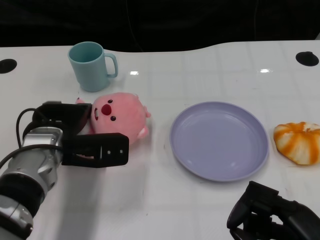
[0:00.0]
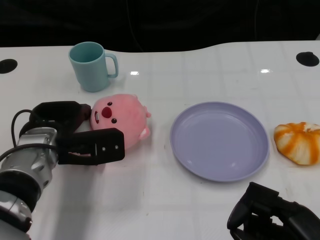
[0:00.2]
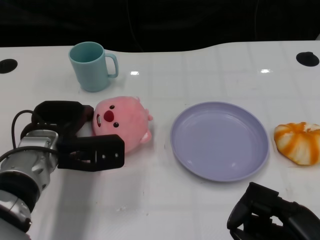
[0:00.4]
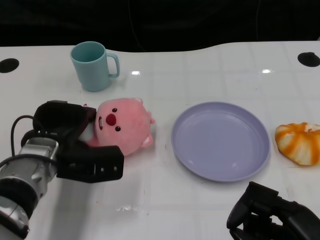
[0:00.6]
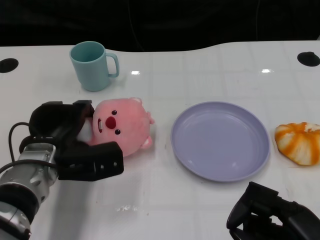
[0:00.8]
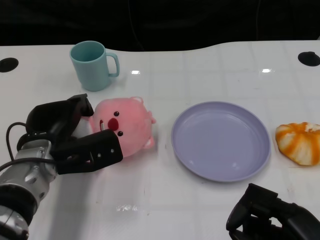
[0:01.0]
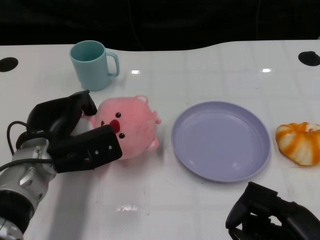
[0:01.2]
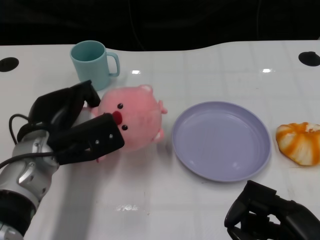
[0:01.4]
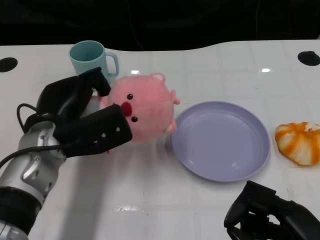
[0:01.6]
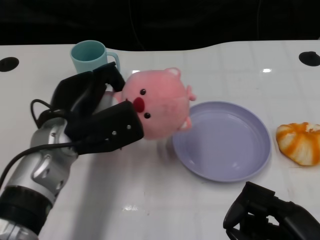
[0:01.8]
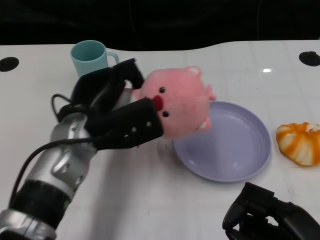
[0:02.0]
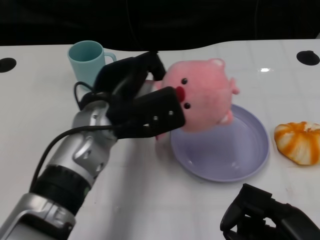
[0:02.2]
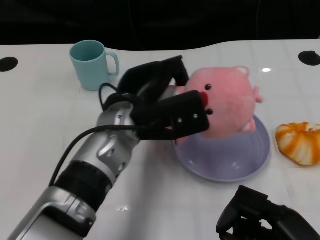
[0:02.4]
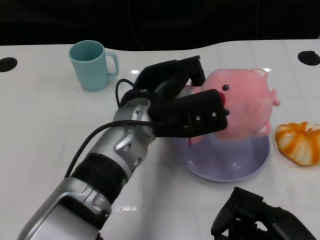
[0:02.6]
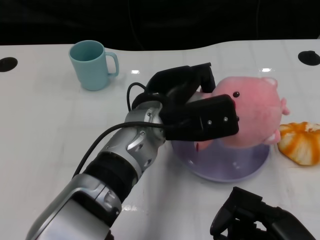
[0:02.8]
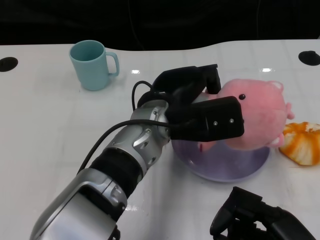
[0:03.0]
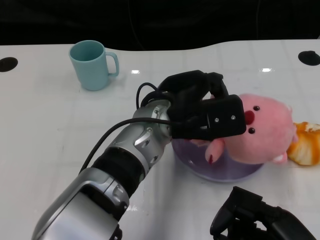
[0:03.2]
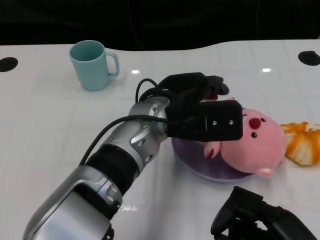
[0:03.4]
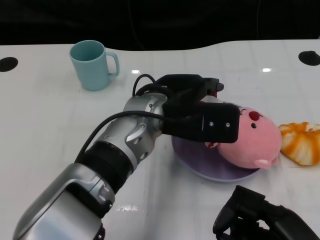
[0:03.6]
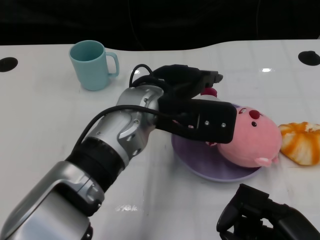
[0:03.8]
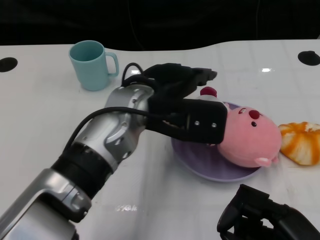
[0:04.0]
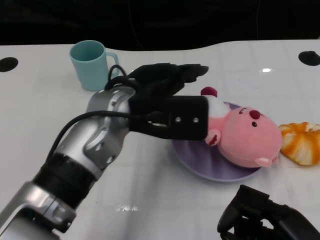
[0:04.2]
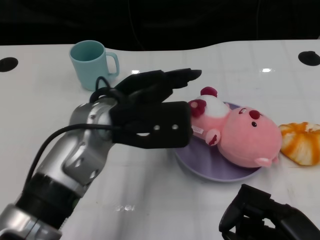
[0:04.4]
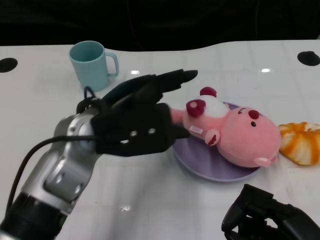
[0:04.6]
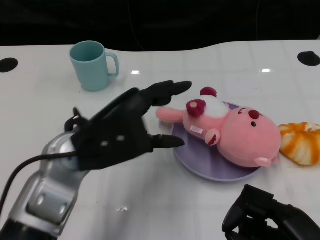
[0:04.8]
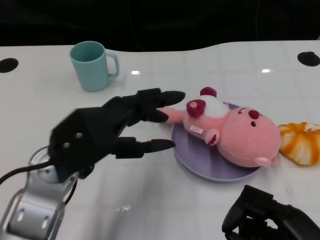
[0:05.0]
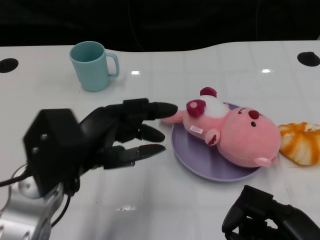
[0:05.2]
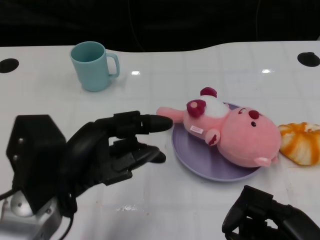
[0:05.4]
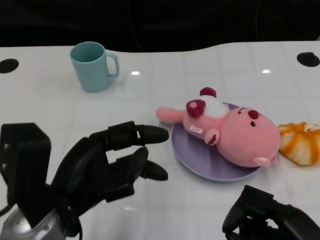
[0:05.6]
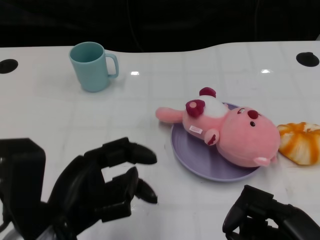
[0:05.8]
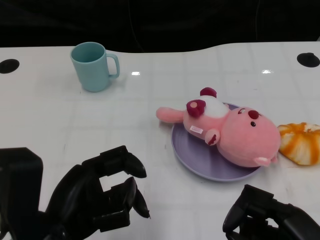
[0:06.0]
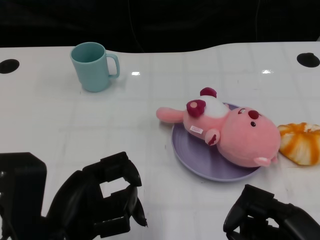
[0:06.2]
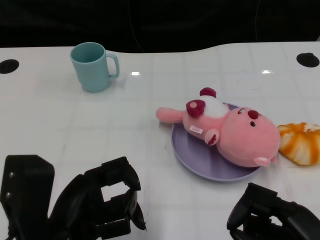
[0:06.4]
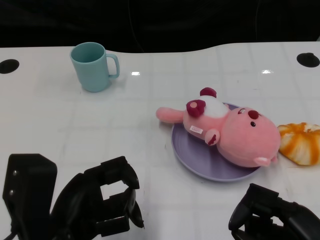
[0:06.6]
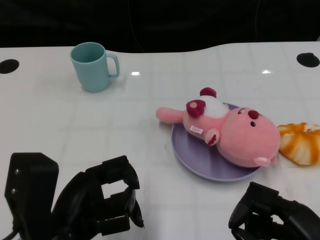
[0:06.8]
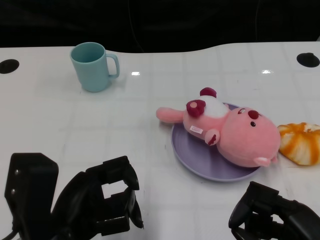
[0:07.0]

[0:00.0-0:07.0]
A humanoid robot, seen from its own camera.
Task of the whole recording: Pick up the doll on one side of the plate and place it into the plate.
Step, 0:01.8 to 0:04.0: Place the pink doll into the plate with the left gripper.
0:01.4 to 0:02.8: The left hand goes some 15 cm to the right.
0:02.8 to 0:04.2: The left hand ends up some 5 cm from where it was.
0:04.2 to 0:05.6: The left hand shifts roughly 15 cm backward and to the left.
0:05.6 to 0:07.0: The hands move only a little.

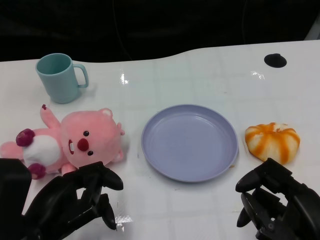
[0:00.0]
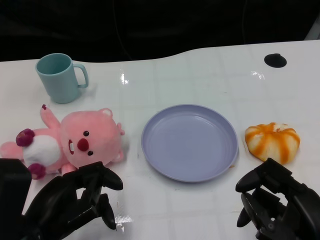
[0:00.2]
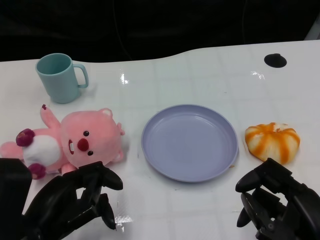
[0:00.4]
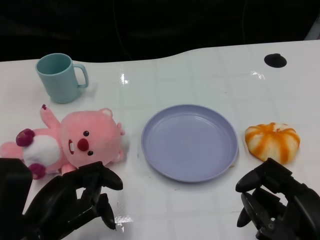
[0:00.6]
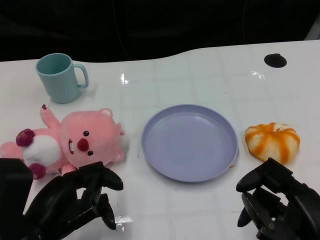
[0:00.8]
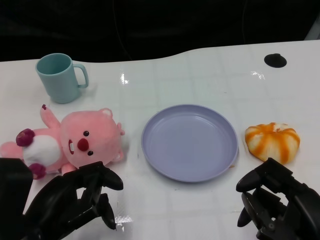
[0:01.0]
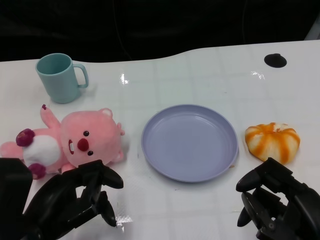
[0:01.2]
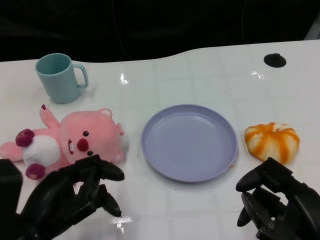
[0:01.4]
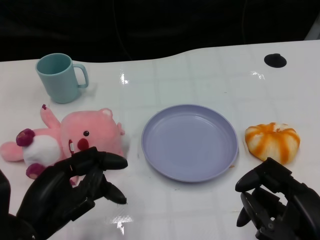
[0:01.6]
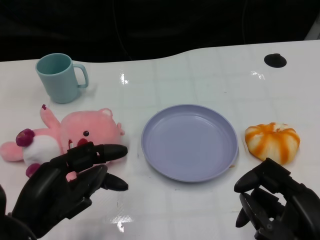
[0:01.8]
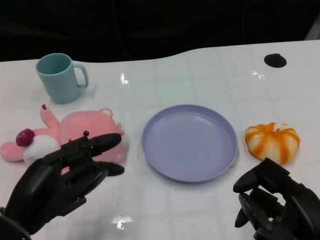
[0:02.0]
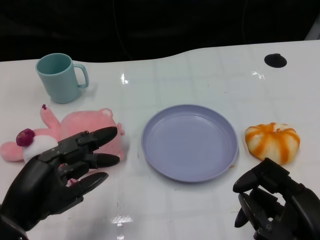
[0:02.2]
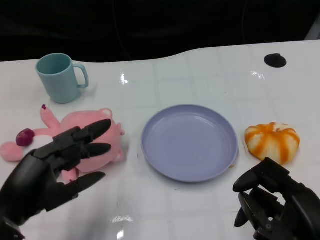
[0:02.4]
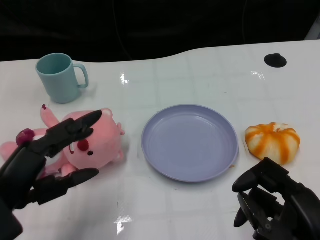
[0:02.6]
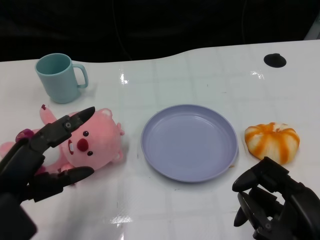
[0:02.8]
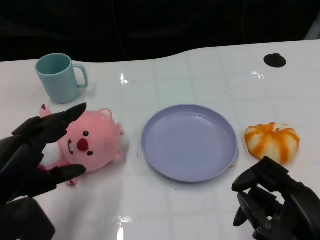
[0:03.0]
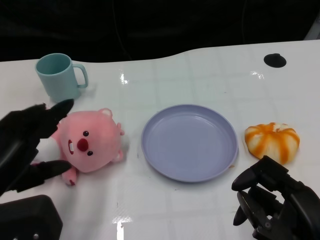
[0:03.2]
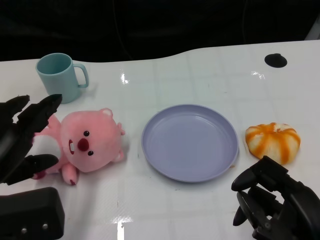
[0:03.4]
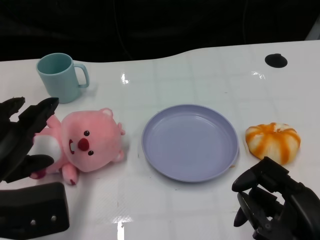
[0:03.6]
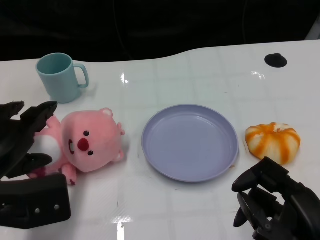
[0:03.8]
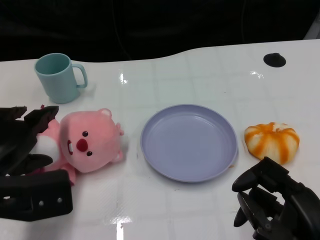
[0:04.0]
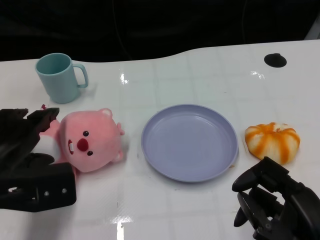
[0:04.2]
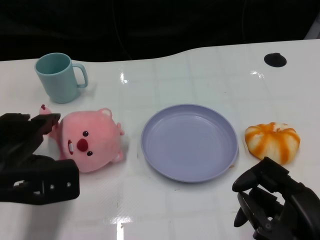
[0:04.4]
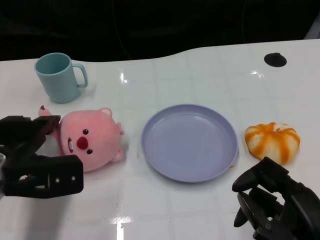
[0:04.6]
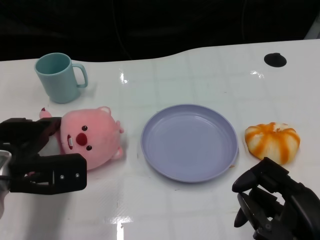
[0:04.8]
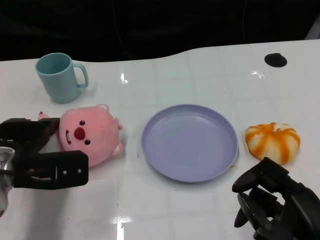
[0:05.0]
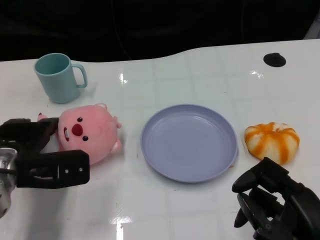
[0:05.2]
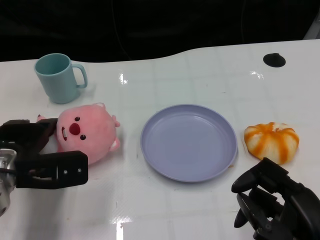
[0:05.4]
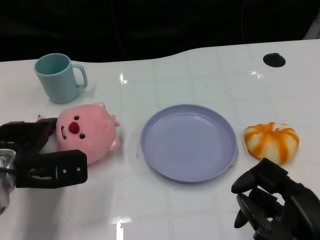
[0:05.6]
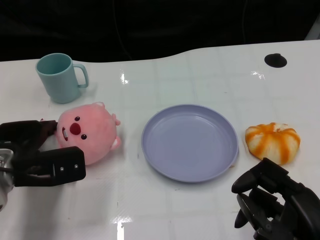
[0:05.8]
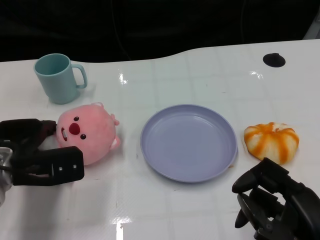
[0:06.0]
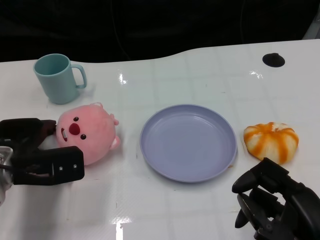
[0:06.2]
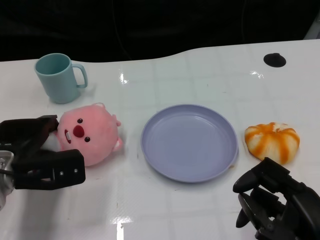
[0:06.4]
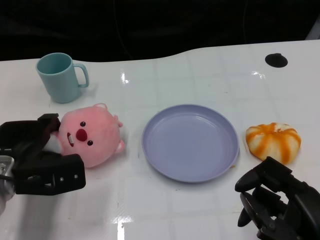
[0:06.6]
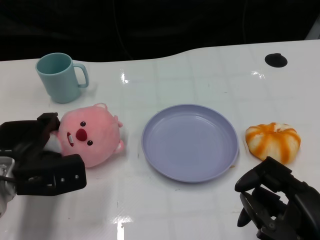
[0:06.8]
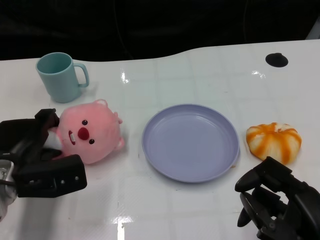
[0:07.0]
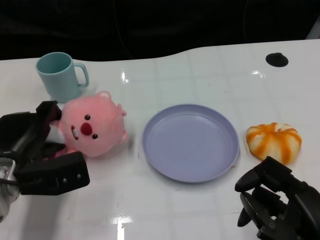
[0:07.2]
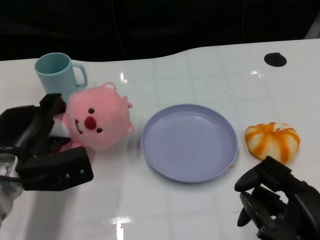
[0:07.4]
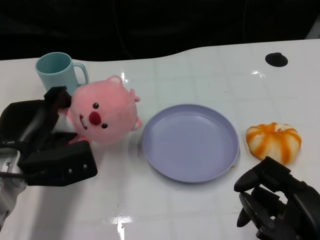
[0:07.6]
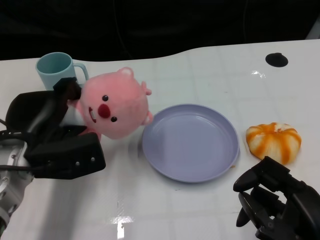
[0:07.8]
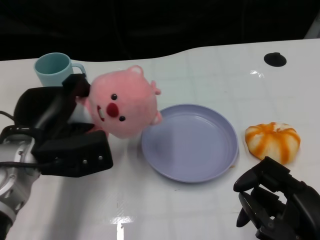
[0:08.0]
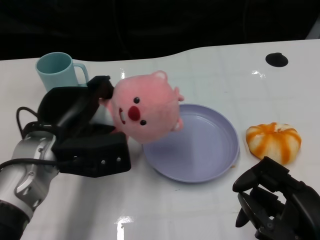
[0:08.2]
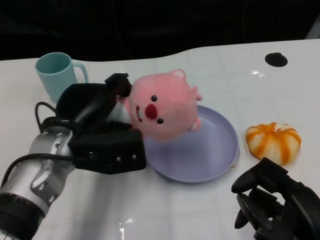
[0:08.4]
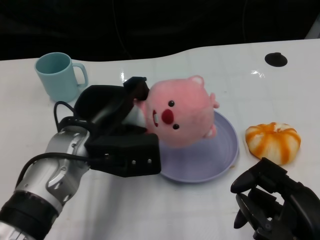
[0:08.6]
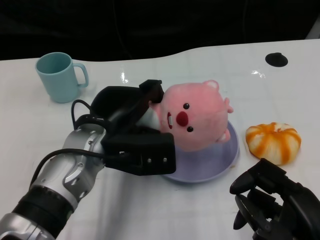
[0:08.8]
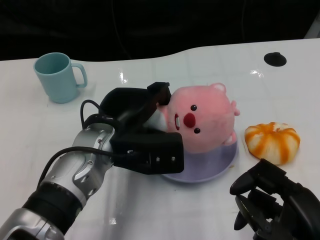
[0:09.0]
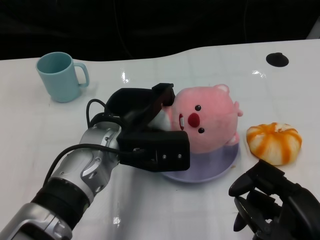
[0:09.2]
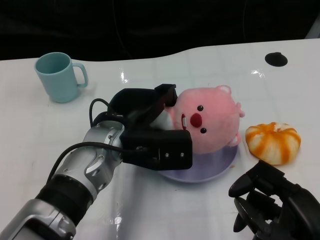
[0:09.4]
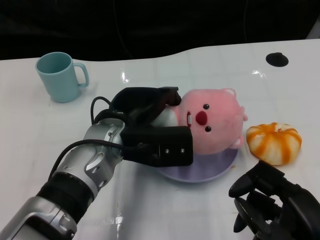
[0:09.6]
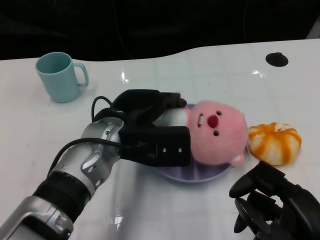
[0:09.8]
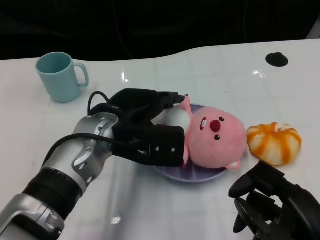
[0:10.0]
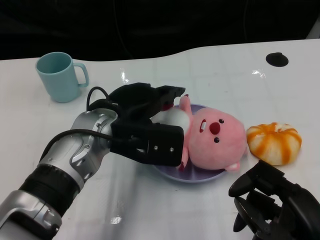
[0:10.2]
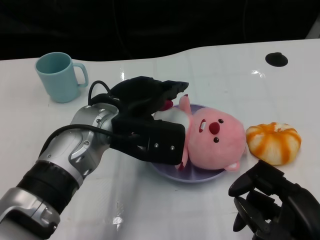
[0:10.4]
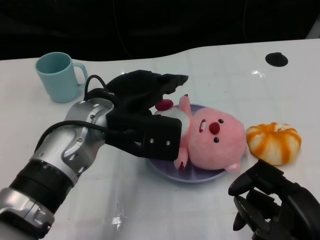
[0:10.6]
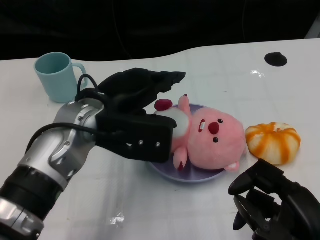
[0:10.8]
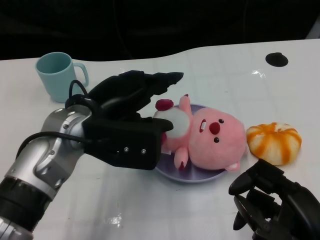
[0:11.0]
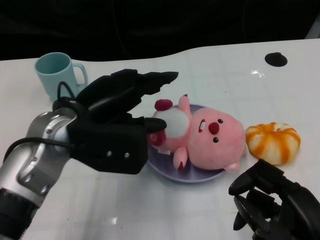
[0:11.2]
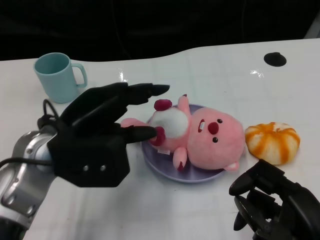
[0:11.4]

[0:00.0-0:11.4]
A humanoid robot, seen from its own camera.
Task of the whole recording: Pick up the doll on one side of the plate and place it into the plate.
Step, 0:01.2 to 0:07.4: Grasp the pink doll with the left gripper.
Step, 0:07.6 to 0:10.2: Place the pink doll into the plate with the left gripper.
0:02.8 to 0:04.2: The left hand shifts about 5 cm forward.
0:04.2 to 0:05.6: The left hand heads forward, covering about 5 cm.
0:07.2 to 0:08.6: The left hand moves to the right and upward, about 10 cm.
0:10.0 to 0:11.4: The left hand shifts some 5 cm to the left.

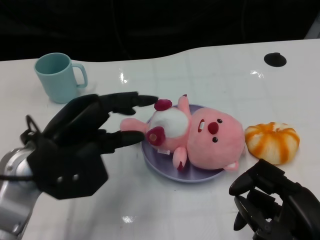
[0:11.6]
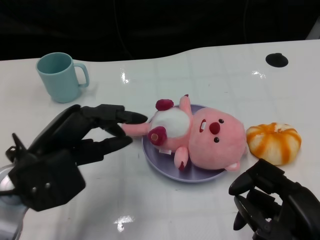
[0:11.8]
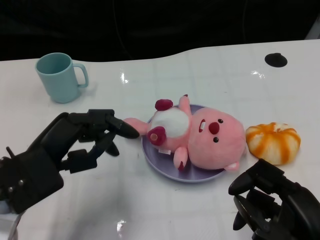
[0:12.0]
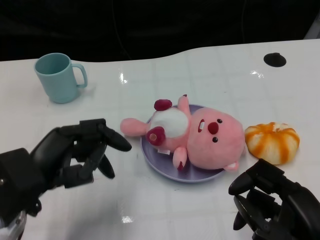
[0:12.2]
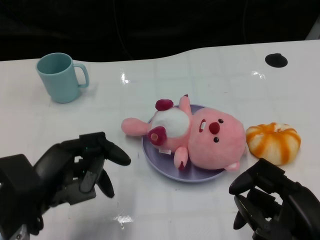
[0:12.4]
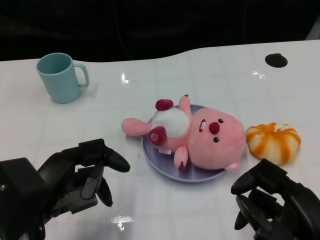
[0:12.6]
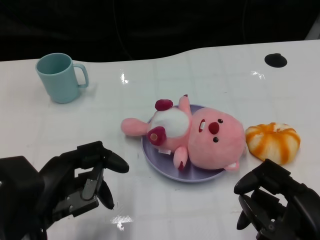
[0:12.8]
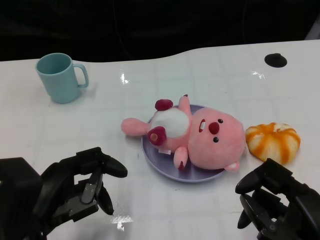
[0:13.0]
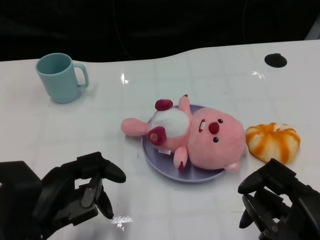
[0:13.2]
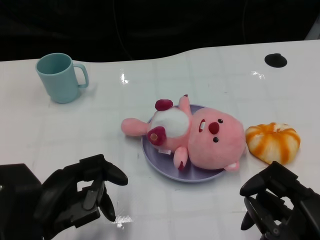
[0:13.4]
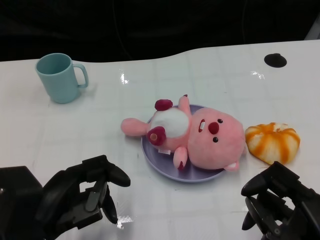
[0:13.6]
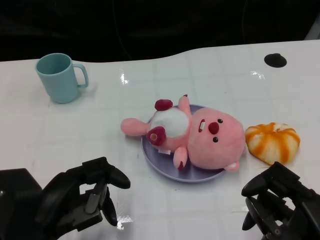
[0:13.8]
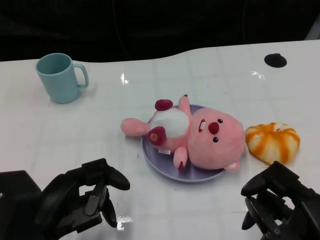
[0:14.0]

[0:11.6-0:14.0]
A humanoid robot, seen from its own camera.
Task of the whole recording: Pick up the doll on one side of the plate and place it into the plate.
0:11.6 to 0:12.8: The left hand travels backward by some 10 cm.
0:12.8 to 0:14.0: The hands make only small movements.

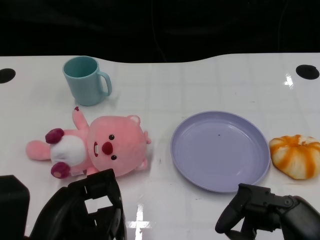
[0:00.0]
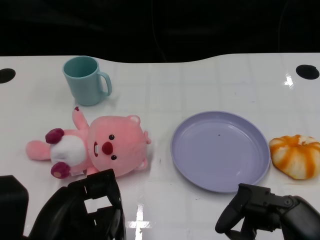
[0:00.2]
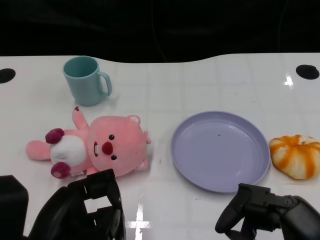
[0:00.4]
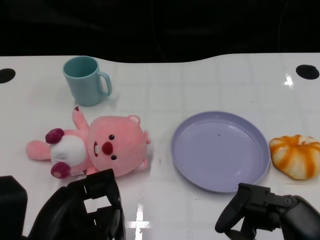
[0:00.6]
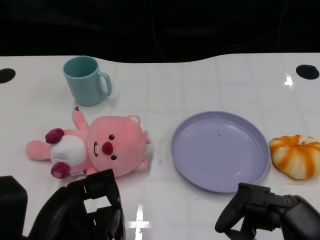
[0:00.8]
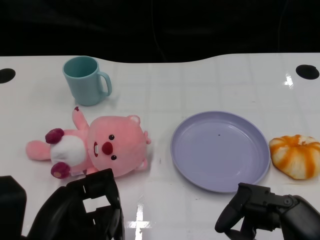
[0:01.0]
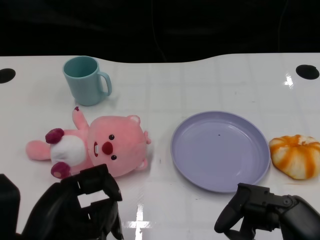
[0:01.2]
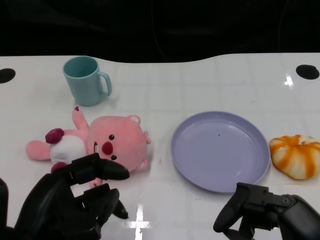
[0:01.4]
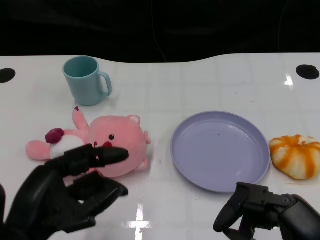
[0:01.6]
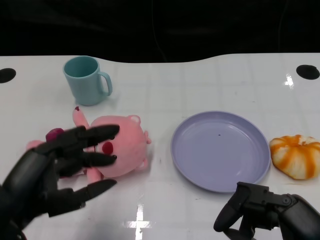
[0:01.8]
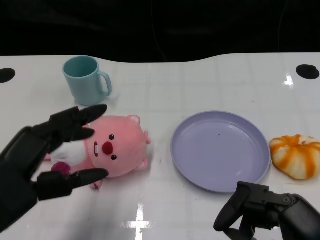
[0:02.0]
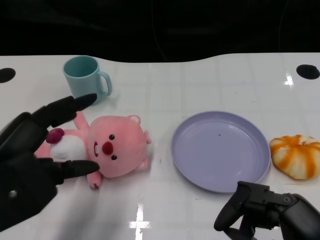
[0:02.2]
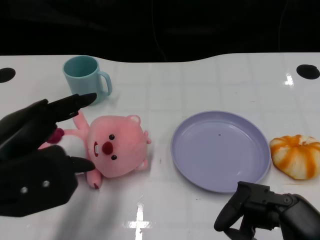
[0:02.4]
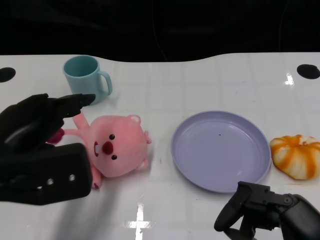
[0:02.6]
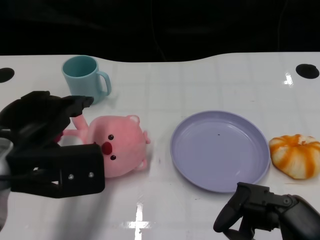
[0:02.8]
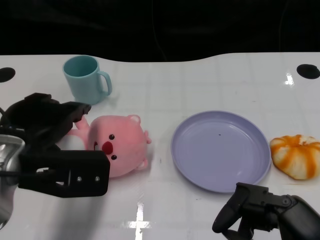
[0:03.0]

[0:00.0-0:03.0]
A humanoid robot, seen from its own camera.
Task of the whole recording: Pick up the doll on one side of the plate and place it into the plate.
0:01.6 to 0:03.0: The left hand heads forward, covering about 10 cm.
